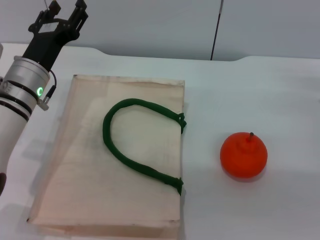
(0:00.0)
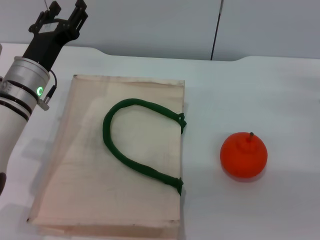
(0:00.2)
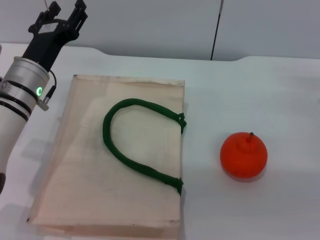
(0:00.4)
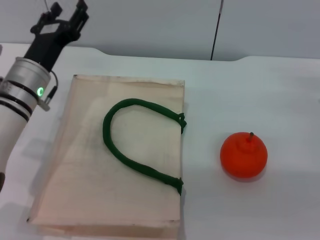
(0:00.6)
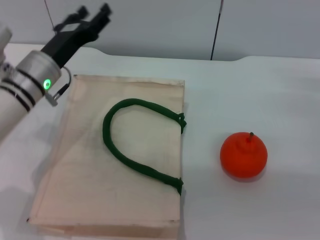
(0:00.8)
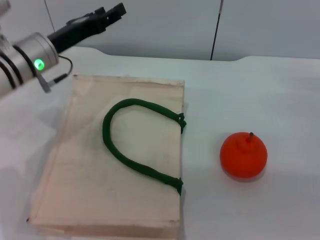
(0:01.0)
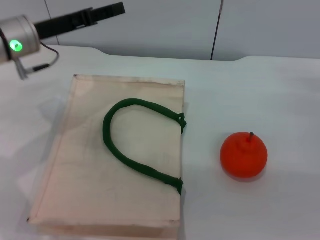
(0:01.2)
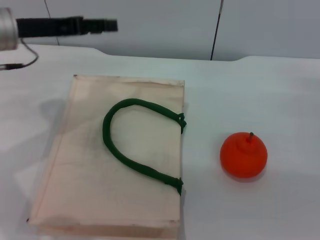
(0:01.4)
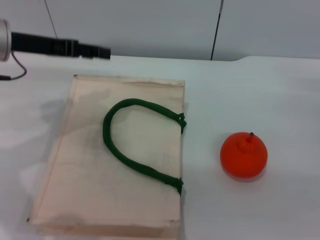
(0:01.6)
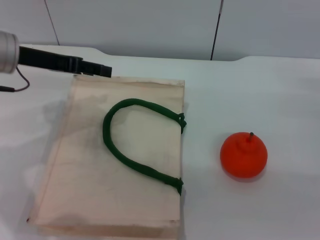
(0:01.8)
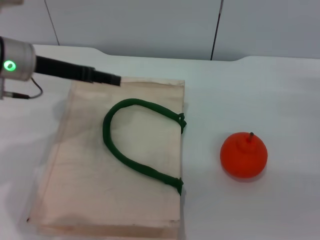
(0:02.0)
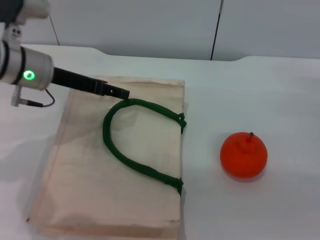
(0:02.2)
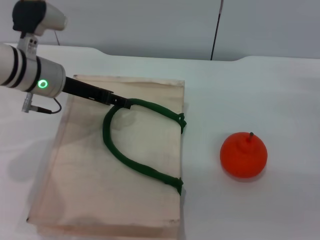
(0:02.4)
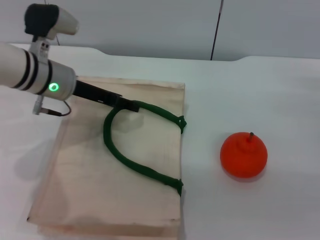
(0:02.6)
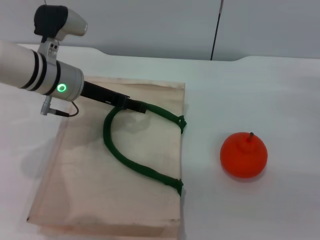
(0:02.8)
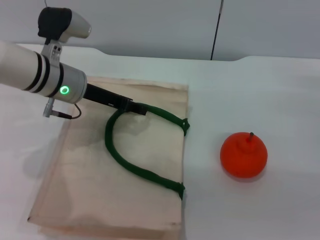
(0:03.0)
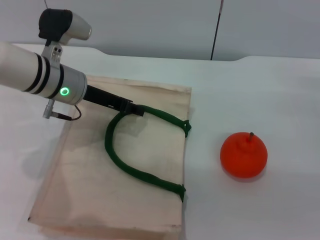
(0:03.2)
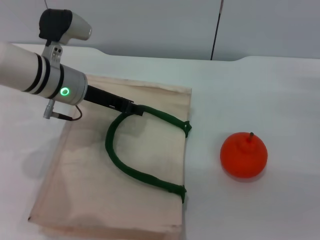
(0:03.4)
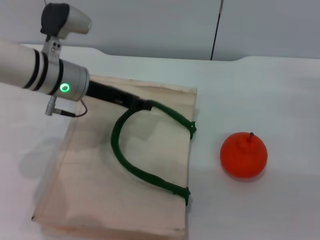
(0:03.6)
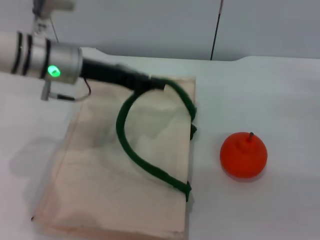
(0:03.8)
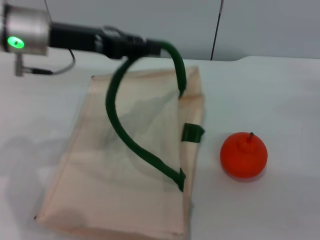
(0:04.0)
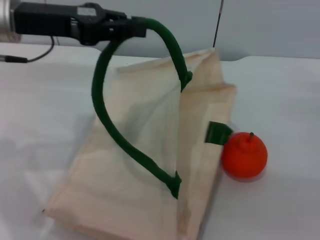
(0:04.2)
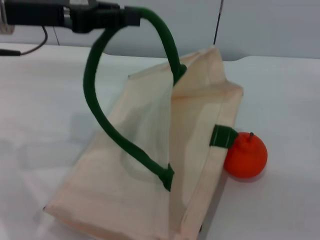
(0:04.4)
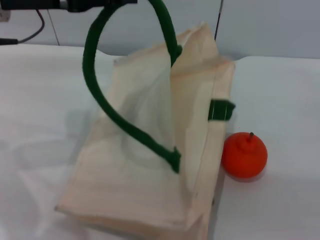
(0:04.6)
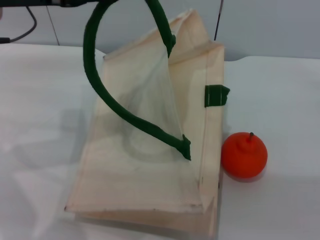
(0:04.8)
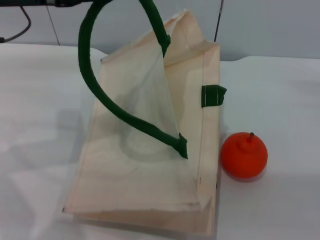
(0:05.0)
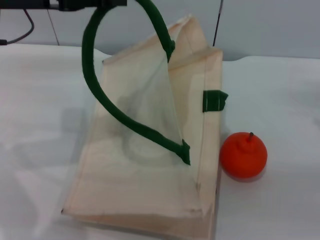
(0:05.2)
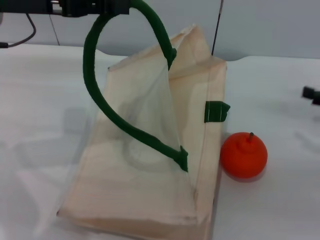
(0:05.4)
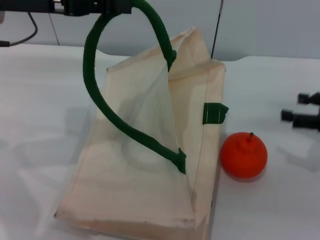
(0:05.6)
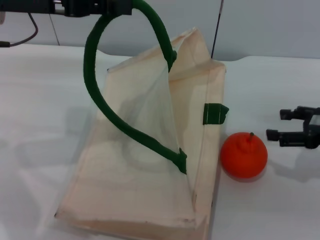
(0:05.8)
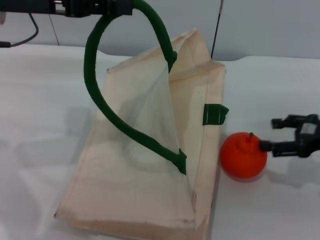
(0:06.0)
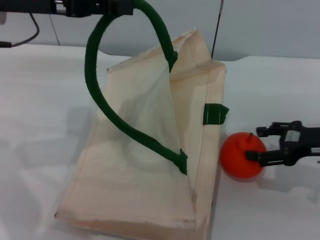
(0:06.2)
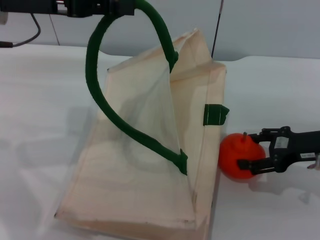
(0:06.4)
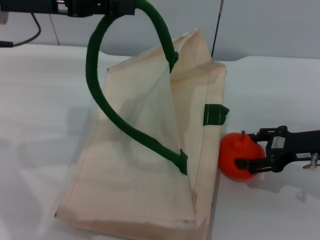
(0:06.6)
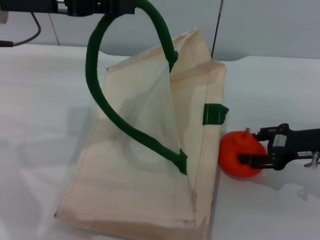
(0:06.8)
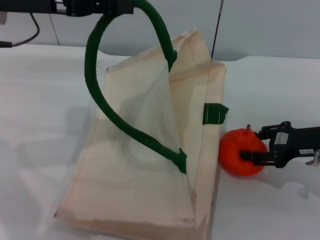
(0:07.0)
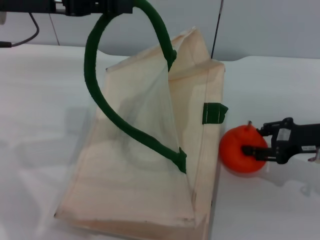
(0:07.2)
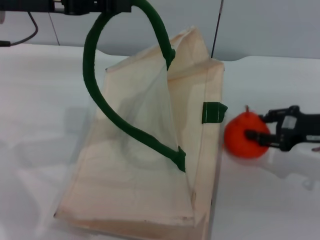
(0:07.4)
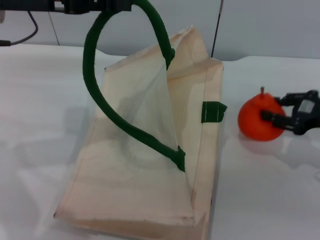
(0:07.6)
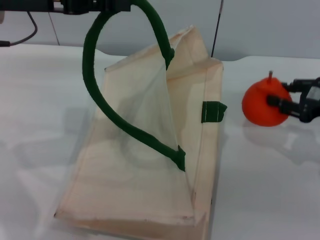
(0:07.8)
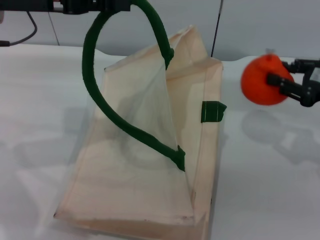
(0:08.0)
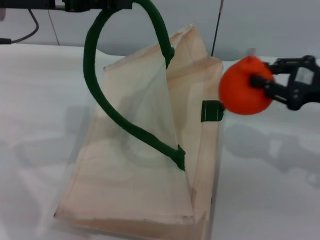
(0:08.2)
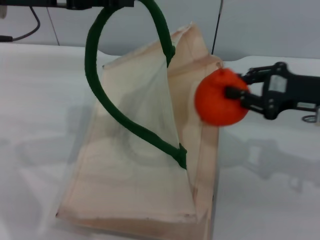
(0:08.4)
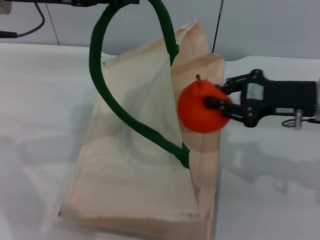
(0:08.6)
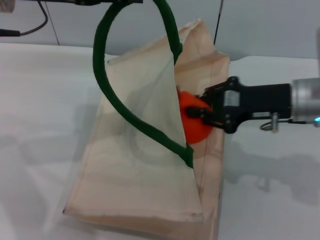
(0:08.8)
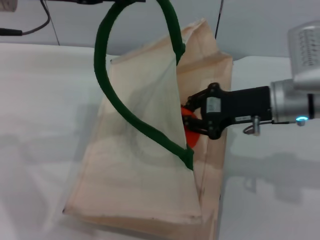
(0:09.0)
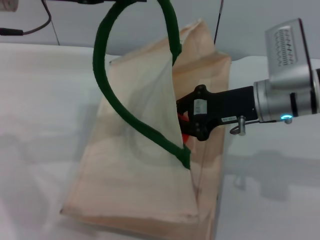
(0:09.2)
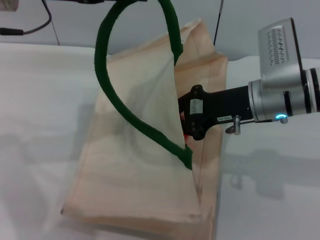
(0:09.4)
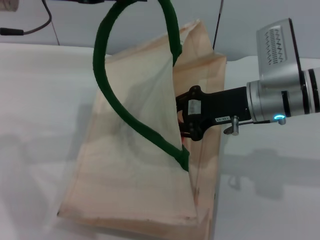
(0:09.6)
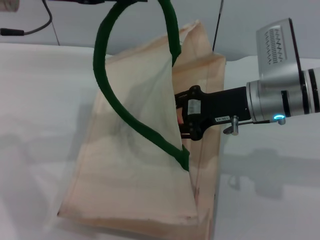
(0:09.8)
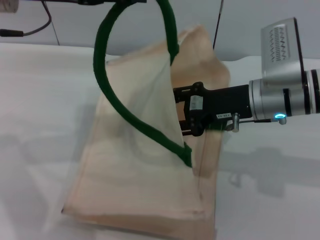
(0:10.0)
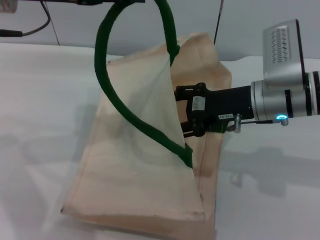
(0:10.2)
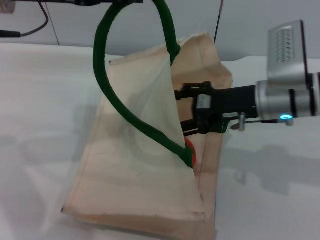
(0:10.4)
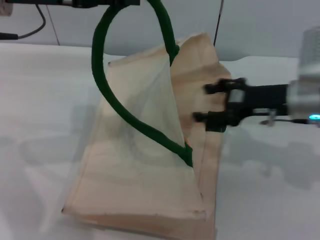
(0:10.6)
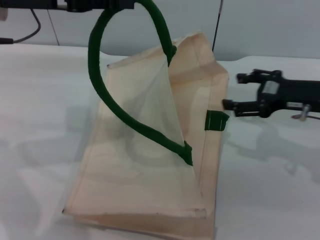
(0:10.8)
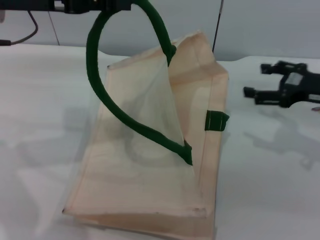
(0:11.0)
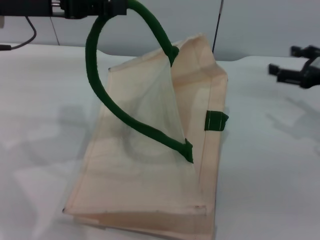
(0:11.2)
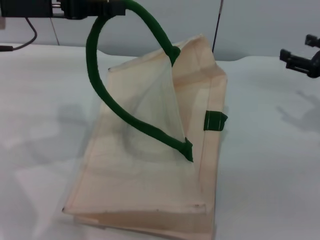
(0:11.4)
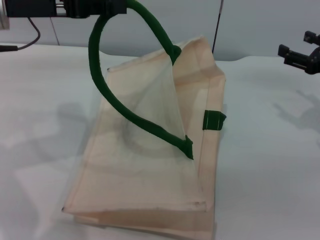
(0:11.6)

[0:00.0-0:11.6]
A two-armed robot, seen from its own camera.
Task of the whole recording: pick up the orange from the table and place it in the white handbag.
Step, 0:00.0 to 0:05.0: Lift the woven bag with the left gripper to open it.
Step, 0:05.2 to 0:07.8: Pick up the orange with the right gripper.
Step, 0:08.0 to 0:10.8: Place the orange into the woven bag with the right gripper.
0:00.0 to 0:01.4: The left gripper travels upward and to the left by some 10 cm.
0:01.4 to 0:02.8: The left gripper heads to the right and downward, covering roughly 10 cm.
0:02.8 to 0:04.4: The left gripper moves upward and to the left, about 15 cm, and closes its fingers.
0:04.4 to 0:05.8: The right gripper goes approximately 5 cm upward.
0:05.8 to 0:07.2: The right gripper moves some 5 cm, and closes its fingers.
0:07.2 to 0:08.8: The right gripper goes some 10 cm to the left, and closes up.
0:08.8 to 0:10.2: The right gripper ends up about 5 cm from where it was, and opens.
0:10.2 to 0:11.6: The right gripper goes roughly 15 cm to the right.

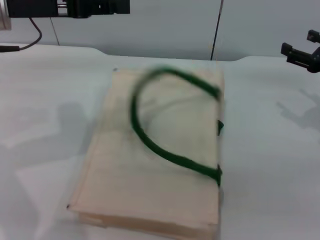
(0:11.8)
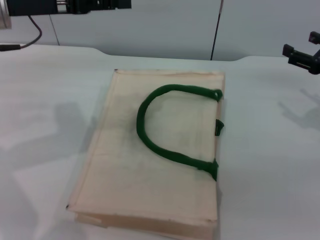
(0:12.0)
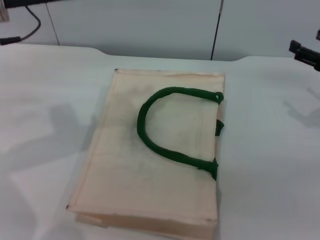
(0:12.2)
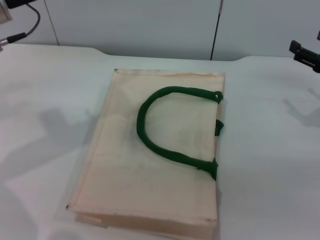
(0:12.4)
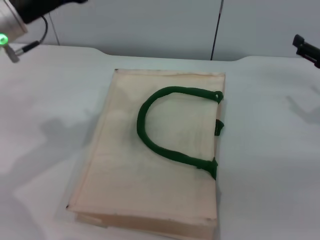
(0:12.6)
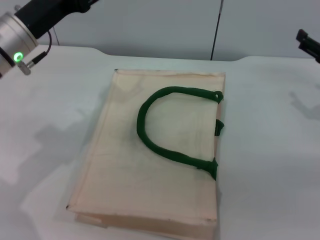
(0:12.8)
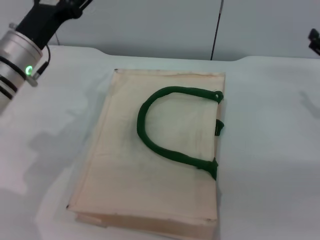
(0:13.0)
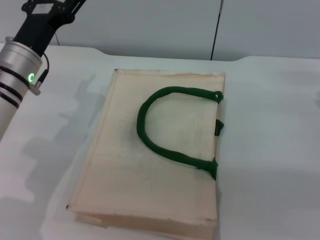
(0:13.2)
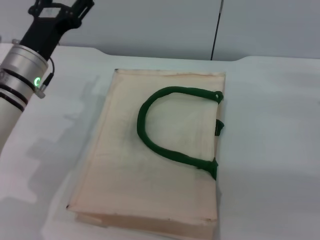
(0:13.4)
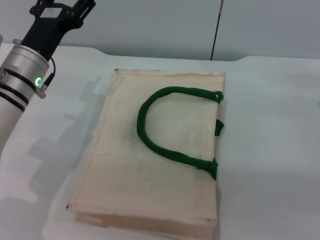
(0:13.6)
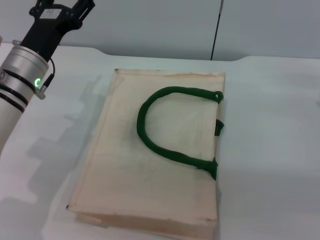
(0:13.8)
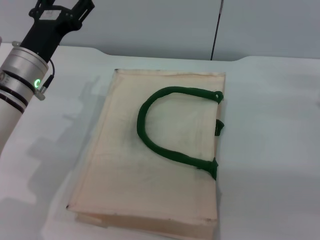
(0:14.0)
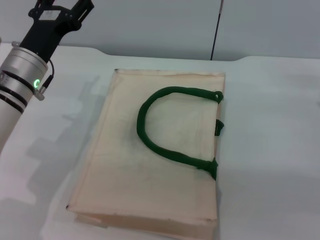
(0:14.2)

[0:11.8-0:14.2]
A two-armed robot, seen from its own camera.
Task of the whole recording: pick up the orange from the table and place it in the white handbag.
0:11.8 to 0:13.0: The left gripper is displaced downward by roughly 10 cm, and opens.
0:13.0 to 0:14.2: The grippers stay close to where they were, moving slightly.
